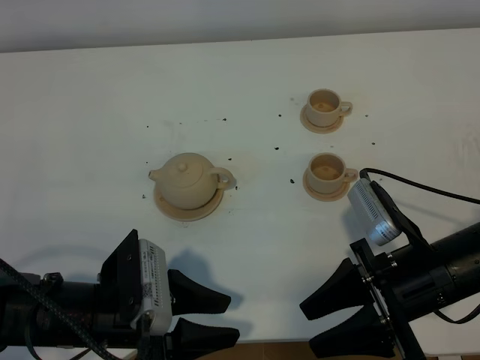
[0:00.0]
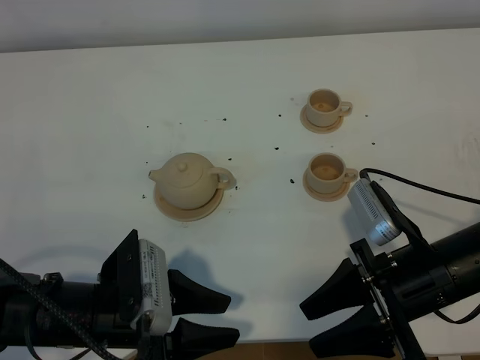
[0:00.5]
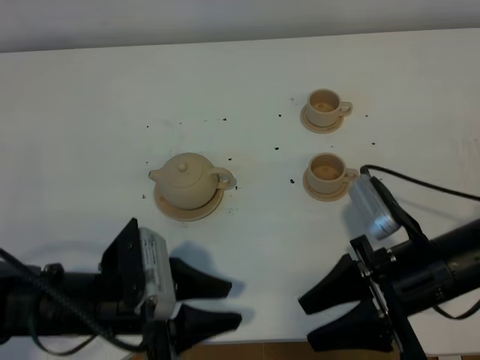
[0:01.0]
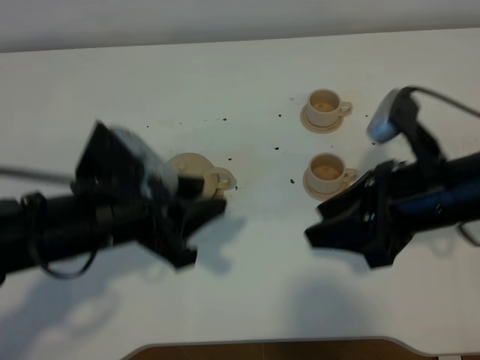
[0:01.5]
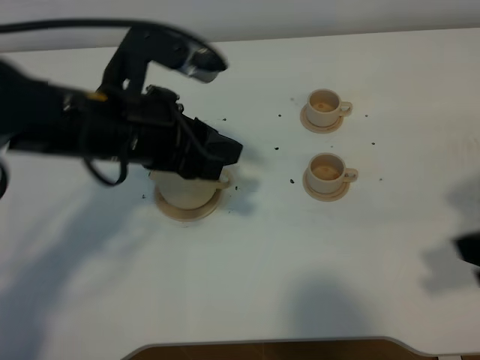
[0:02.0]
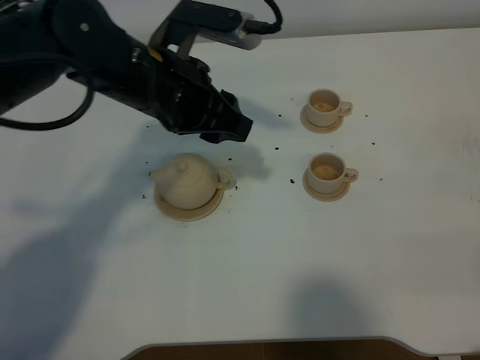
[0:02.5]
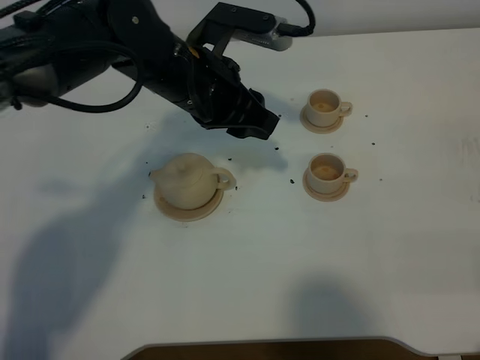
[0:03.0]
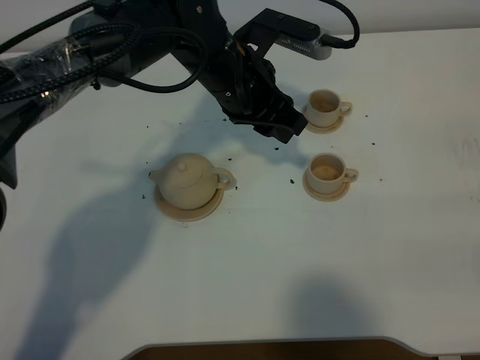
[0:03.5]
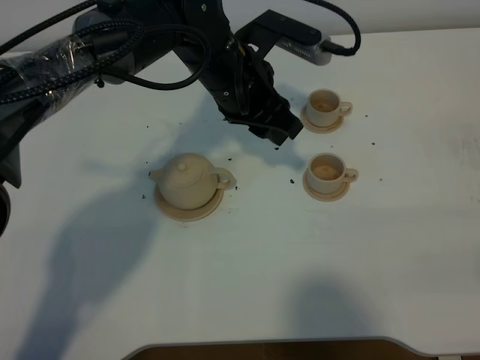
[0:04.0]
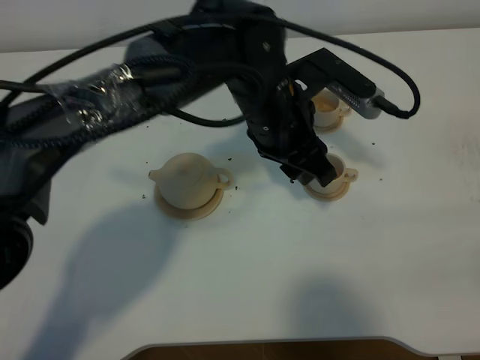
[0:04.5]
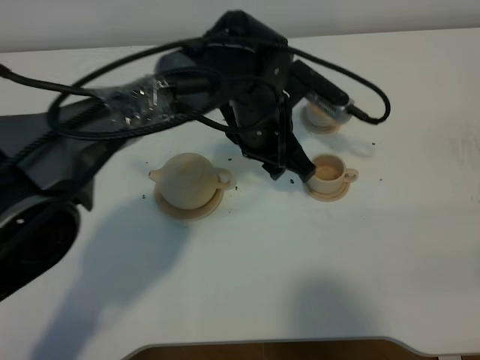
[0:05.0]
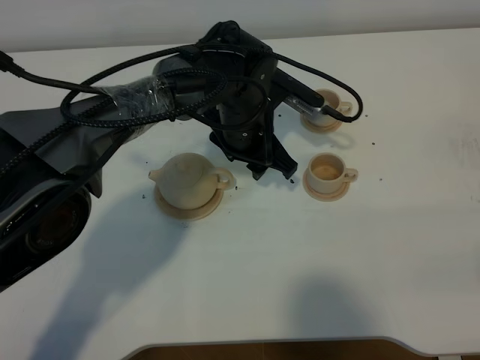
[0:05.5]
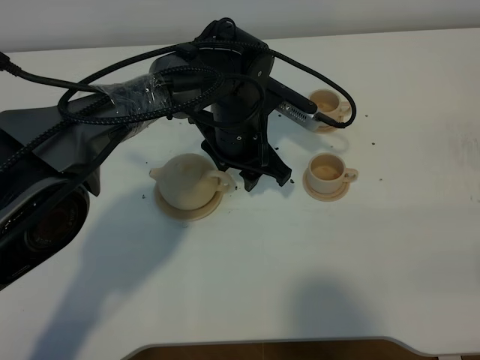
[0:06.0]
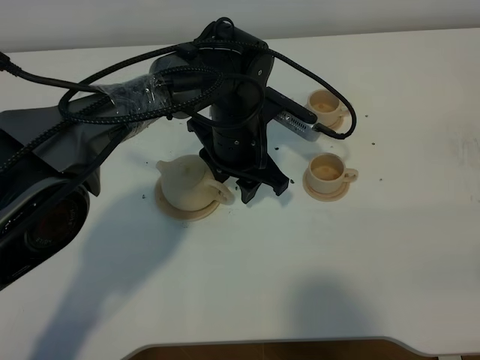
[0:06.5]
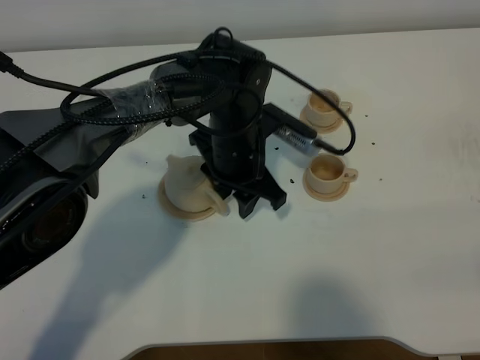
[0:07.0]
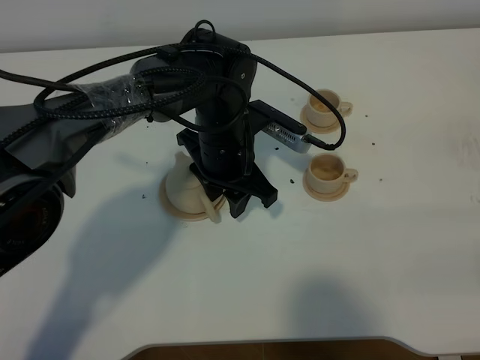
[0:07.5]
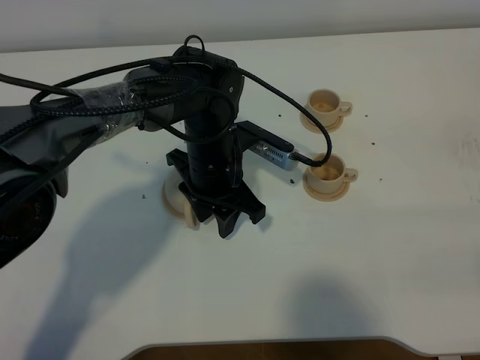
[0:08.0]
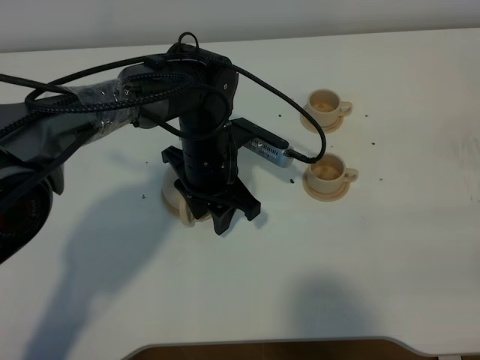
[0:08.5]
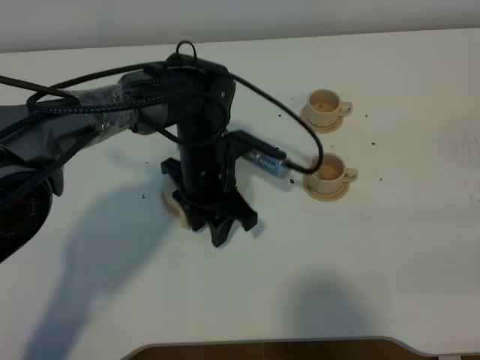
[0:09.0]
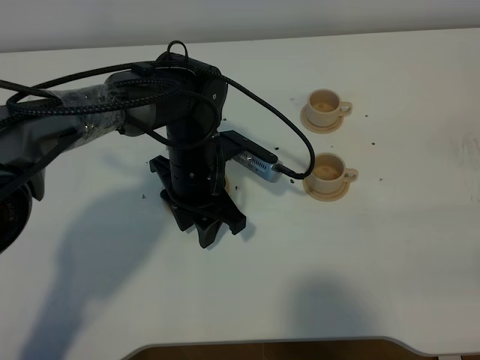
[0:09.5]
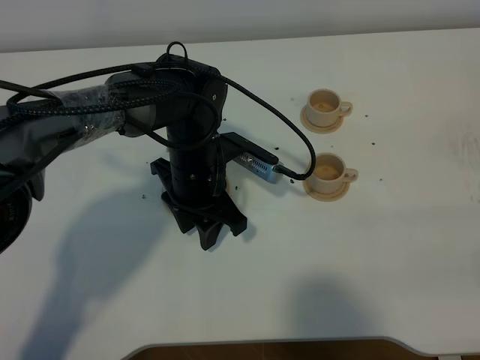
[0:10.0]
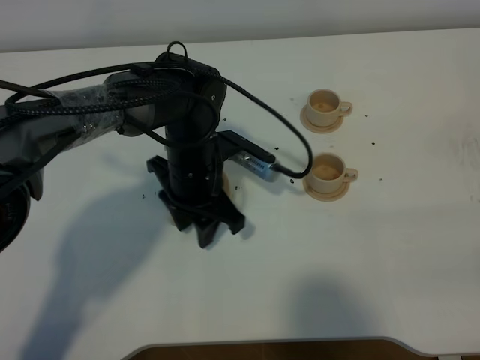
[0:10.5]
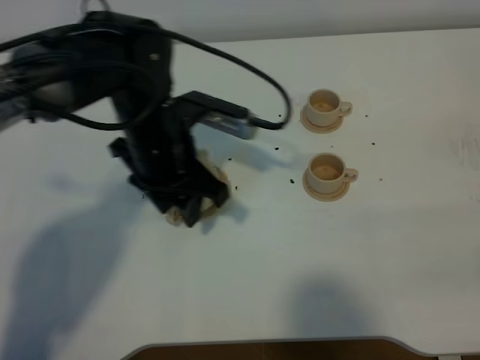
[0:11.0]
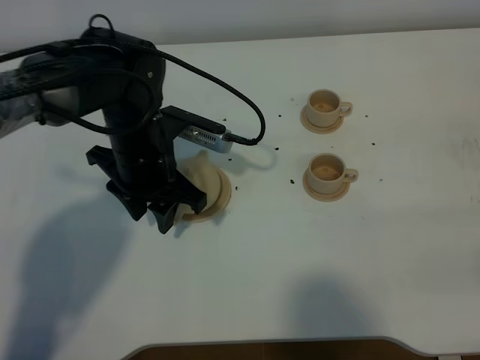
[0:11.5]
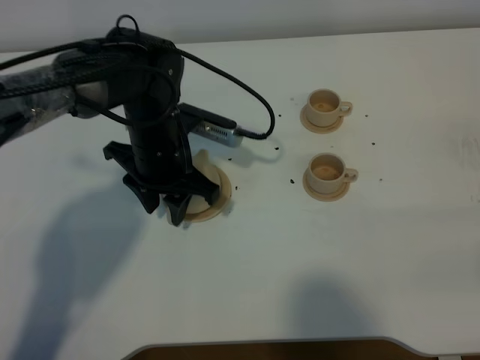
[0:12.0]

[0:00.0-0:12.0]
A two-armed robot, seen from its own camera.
Task of the whole recording: grasp the brown teapot and pour the tea into the two brown teacups one by one, put the brown teapot back in its original place.
0.0 to 2.0 s: The left gripper heads forward and upward, covering some 20 cm. Meanwhile the right gripper travels upward and to the right by roughly 15 cm.
2.0 to 4.0 s: The right gripper is displaced backward by approximately 15 cm. The left gripper heads forward and to the right, covering roughly 15 cm.
4.0 to 6.0 s: The left gripper shifts some 10 cm downward.
6.0 to 8.0 s: The left gripper changes place by about 5 cm.
8.0 to 10.0 s: The grippers make only small movements.

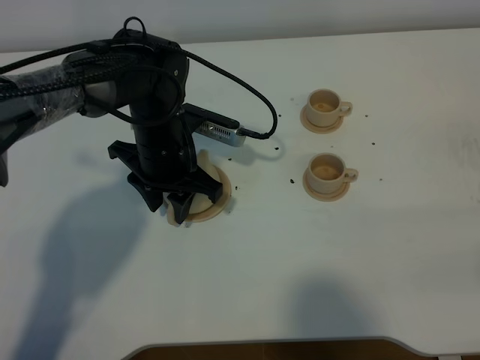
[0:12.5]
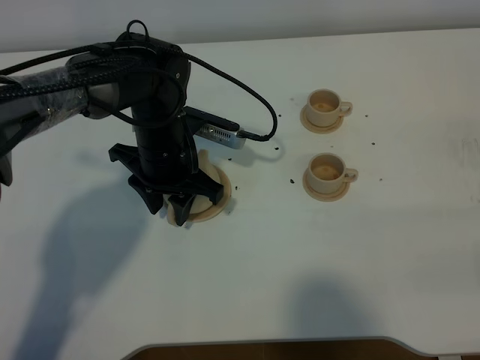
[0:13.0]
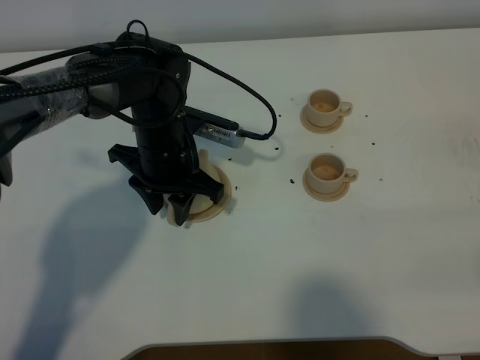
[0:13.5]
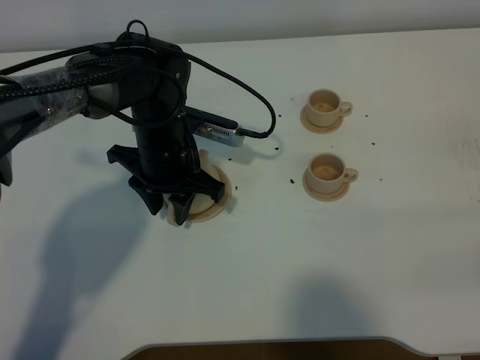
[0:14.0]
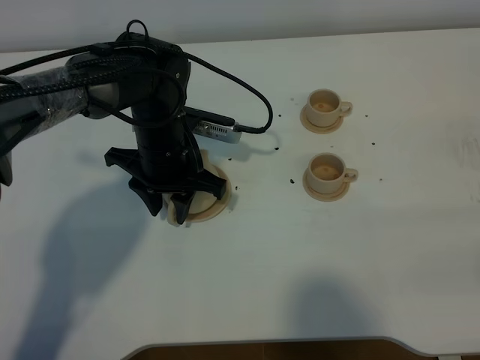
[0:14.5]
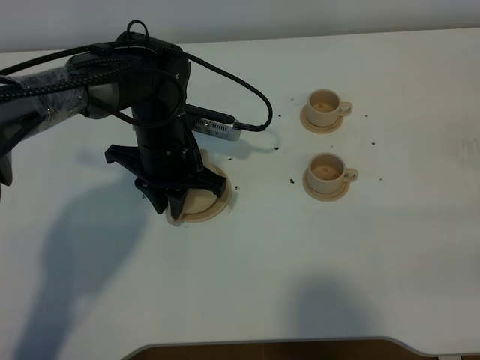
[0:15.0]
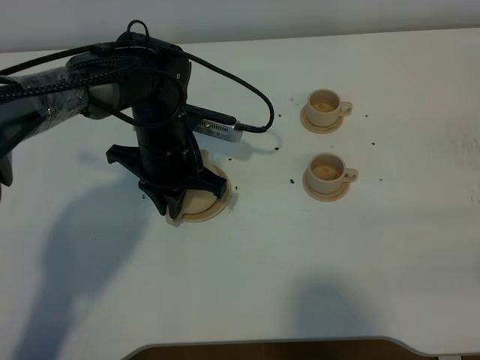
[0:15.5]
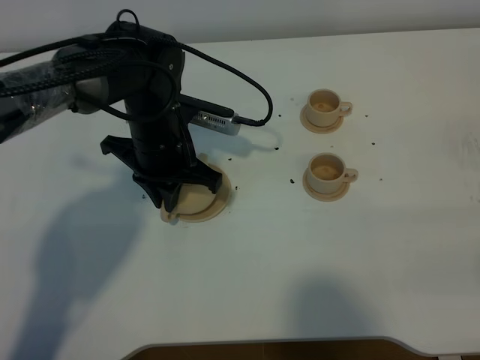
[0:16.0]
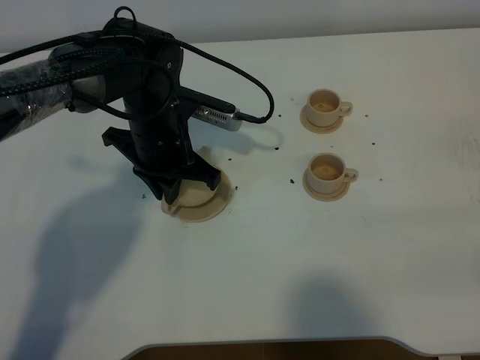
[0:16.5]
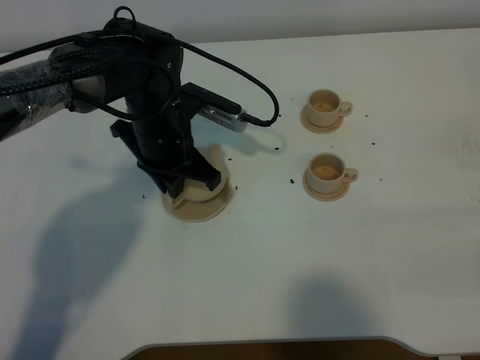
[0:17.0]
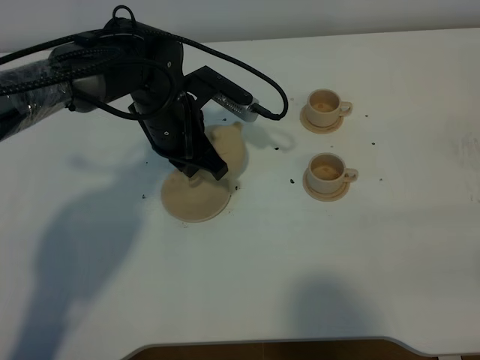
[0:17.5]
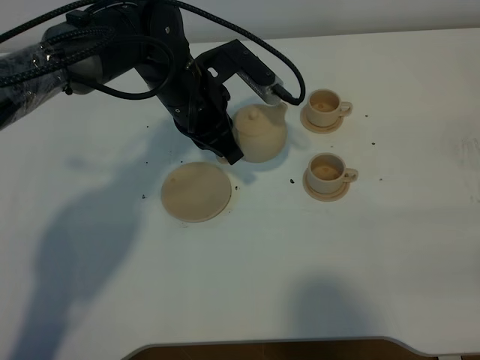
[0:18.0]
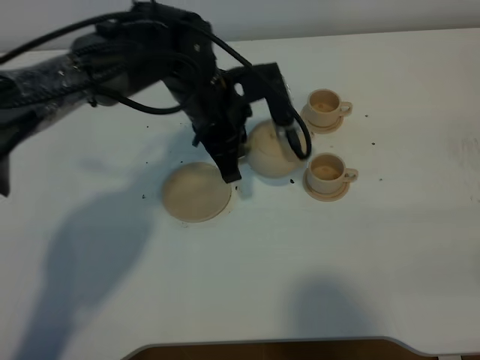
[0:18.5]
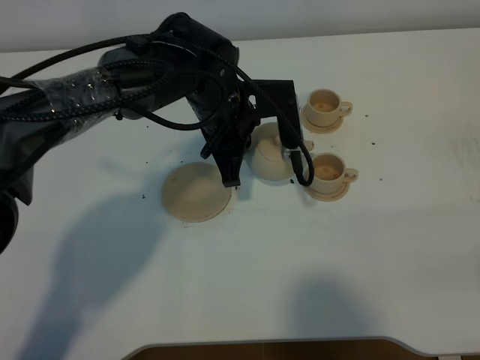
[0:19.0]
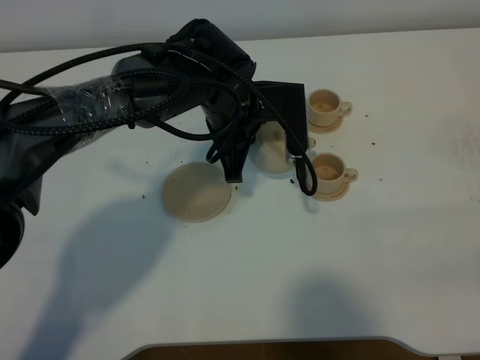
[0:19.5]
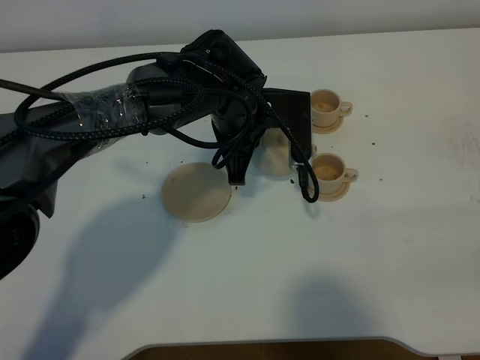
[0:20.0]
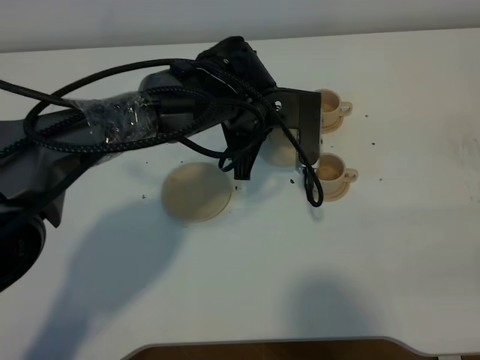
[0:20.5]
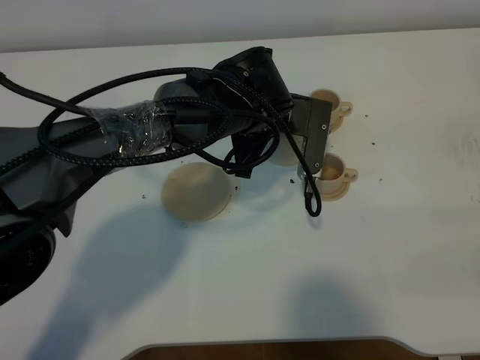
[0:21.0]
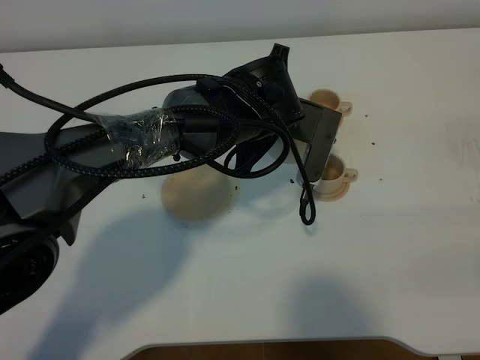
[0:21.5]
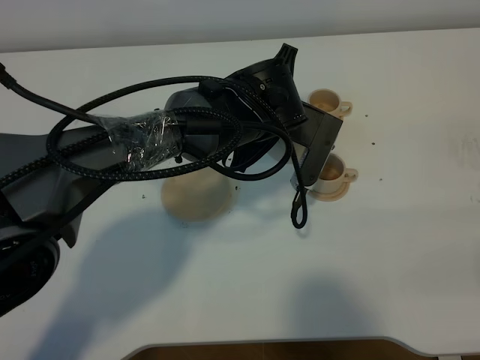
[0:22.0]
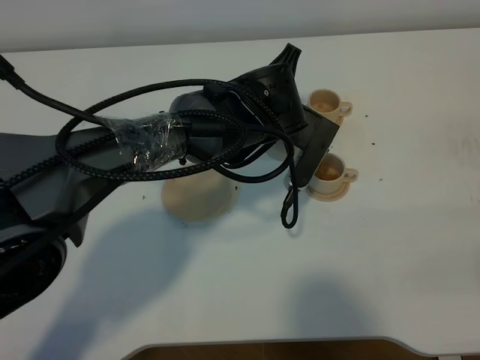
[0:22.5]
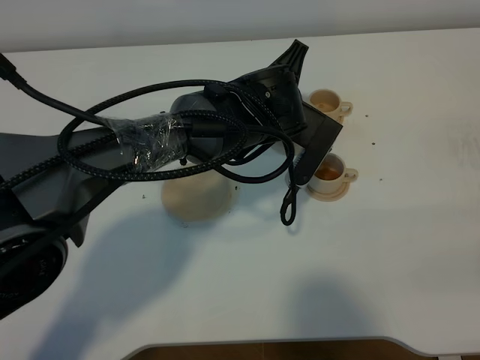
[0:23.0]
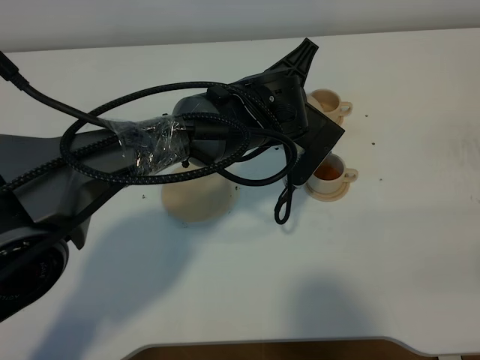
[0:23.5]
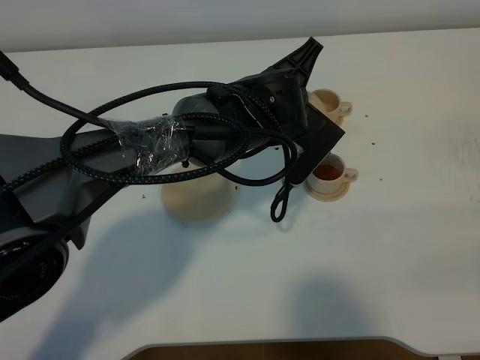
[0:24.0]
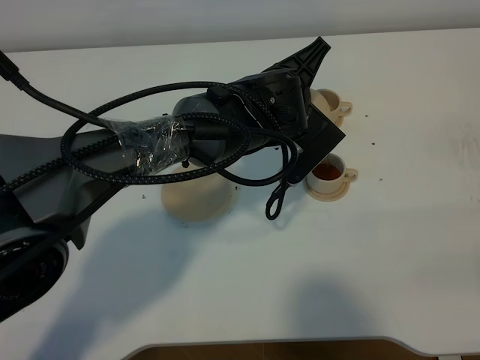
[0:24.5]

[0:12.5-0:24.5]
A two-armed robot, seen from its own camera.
Task of the whole recording: grasp the brown teapot and pour the tea into the two brown teacups one by one, put the brown teapot back in its original place.
Step, 12.5 to 17.0 s: Pick up the teapot with the left gripper.
12.5 to 14.5 s: There are only small adjustments of the grippers.
14.5 to 16.5 s: The left gripper closes its fingers.
16.5 to 18.5 s: The left gripper moves to the right, some 5 cm.
22.5 to 24.5 s: There are only small adjustments of the grippers.

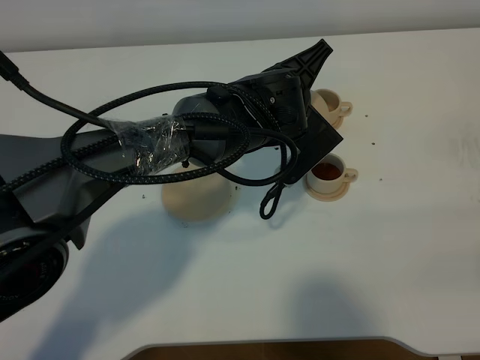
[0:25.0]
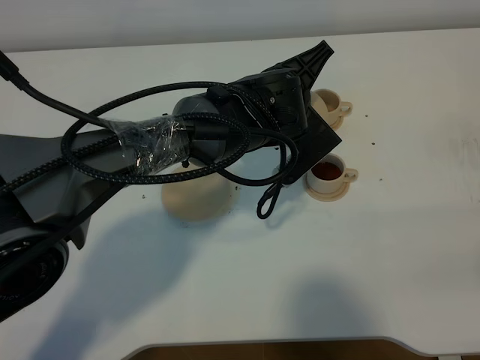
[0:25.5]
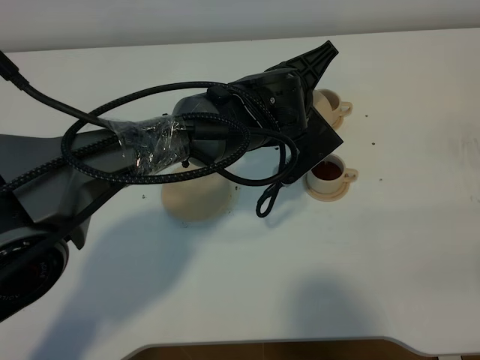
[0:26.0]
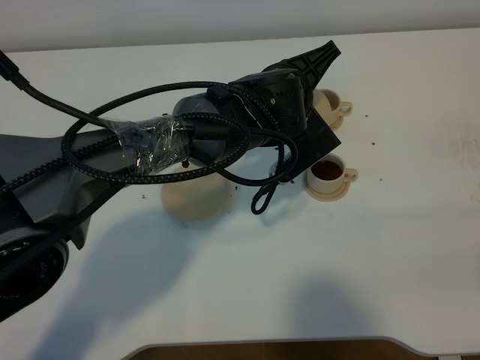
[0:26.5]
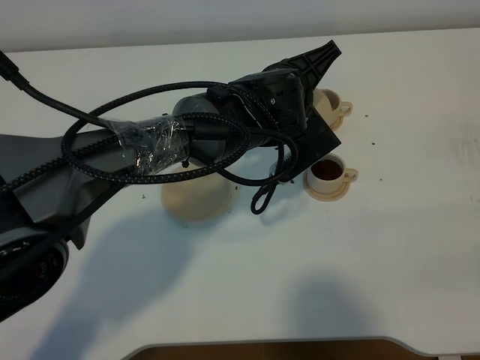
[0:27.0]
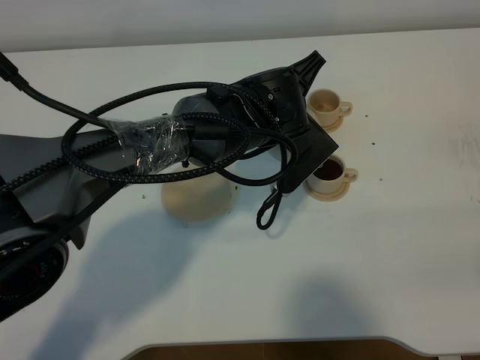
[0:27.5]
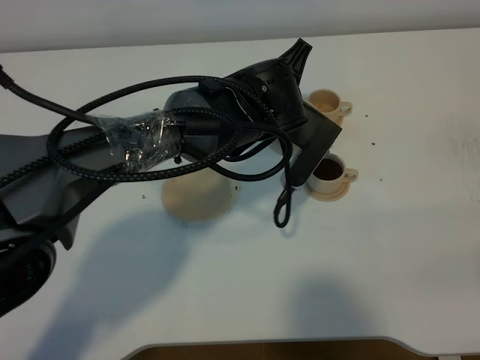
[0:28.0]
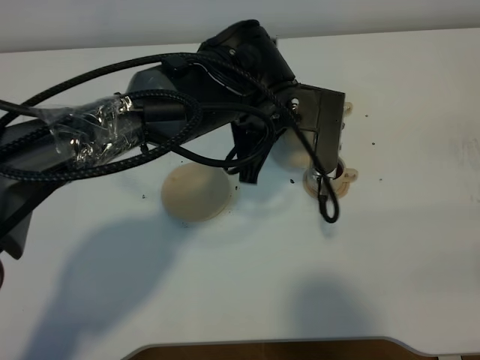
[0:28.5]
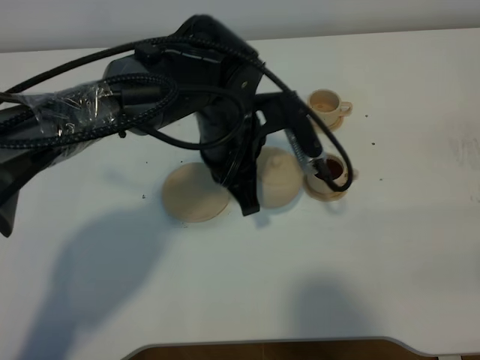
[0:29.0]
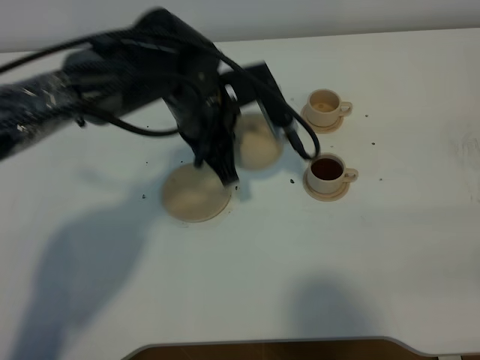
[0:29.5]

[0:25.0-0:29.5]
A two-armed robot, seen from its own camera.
Task of the whole recording: grasp the brown teapot and pour the tea into the two brown teacups one by one, put the brown teapot back in its original place.
25.0 to 27.0 s: The grippers move only a little.
27.0 to 29.5 s: The left gripper travels to the left by approximately 10 cm.
